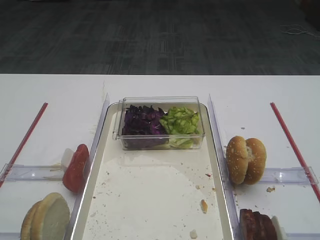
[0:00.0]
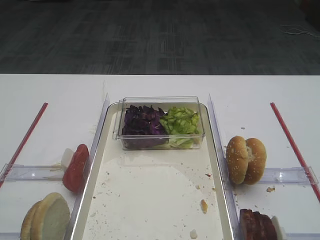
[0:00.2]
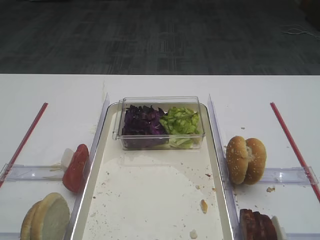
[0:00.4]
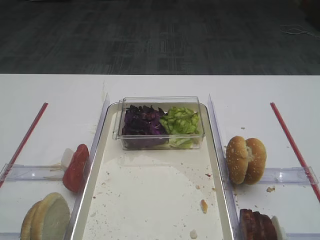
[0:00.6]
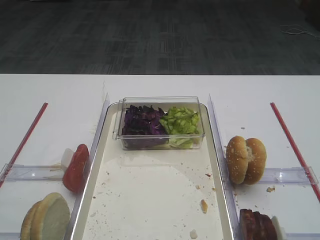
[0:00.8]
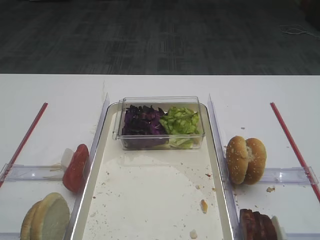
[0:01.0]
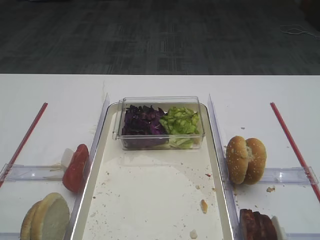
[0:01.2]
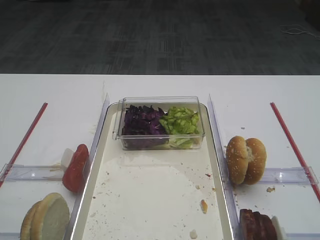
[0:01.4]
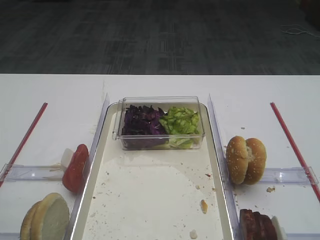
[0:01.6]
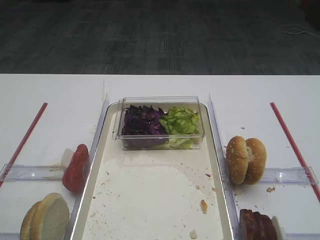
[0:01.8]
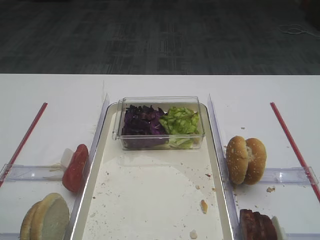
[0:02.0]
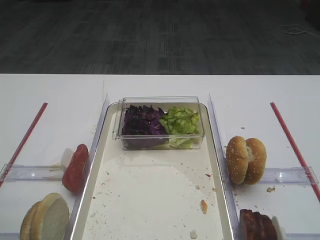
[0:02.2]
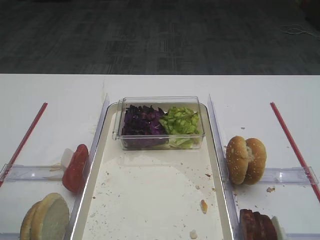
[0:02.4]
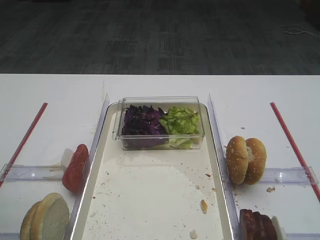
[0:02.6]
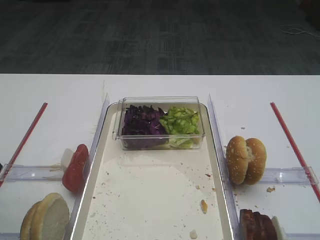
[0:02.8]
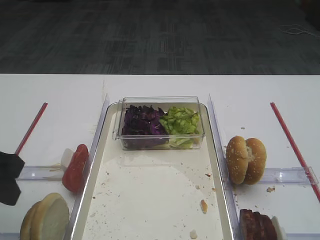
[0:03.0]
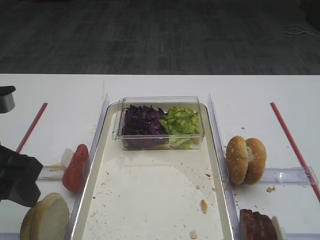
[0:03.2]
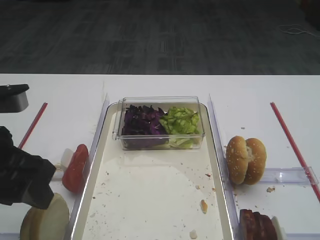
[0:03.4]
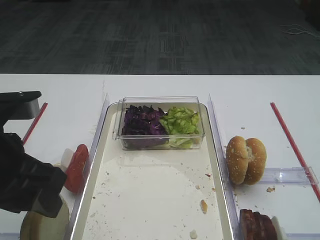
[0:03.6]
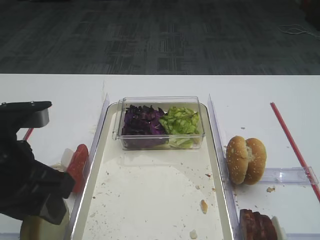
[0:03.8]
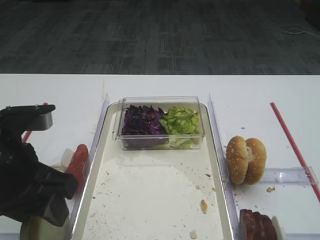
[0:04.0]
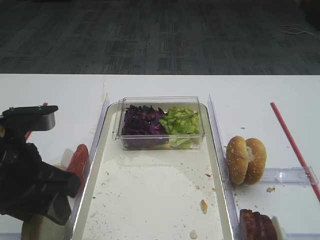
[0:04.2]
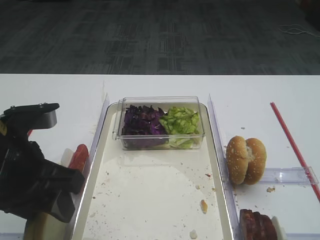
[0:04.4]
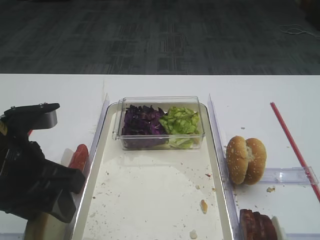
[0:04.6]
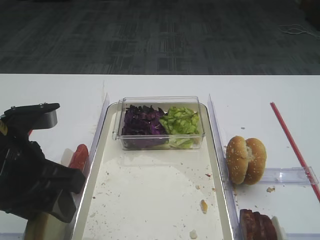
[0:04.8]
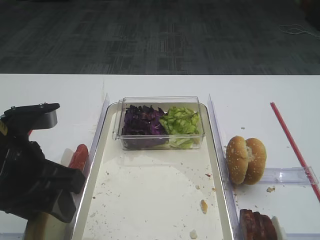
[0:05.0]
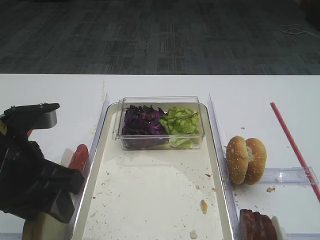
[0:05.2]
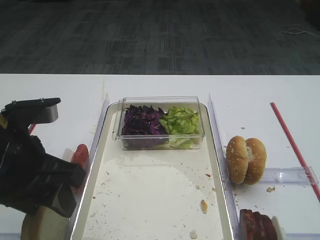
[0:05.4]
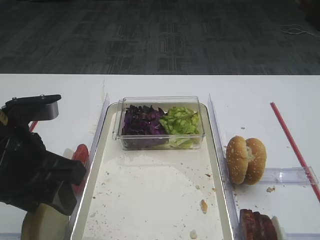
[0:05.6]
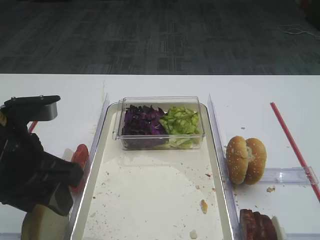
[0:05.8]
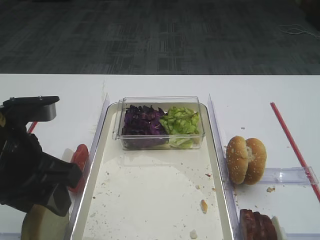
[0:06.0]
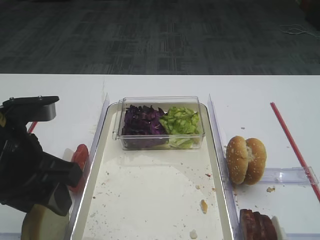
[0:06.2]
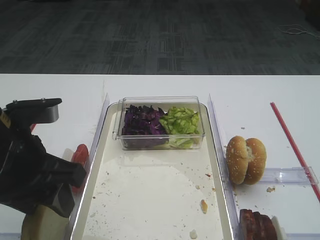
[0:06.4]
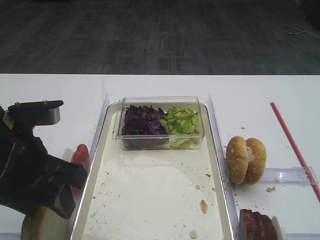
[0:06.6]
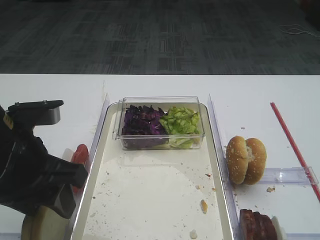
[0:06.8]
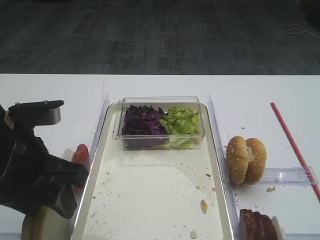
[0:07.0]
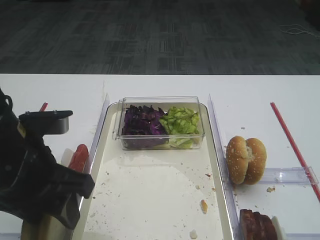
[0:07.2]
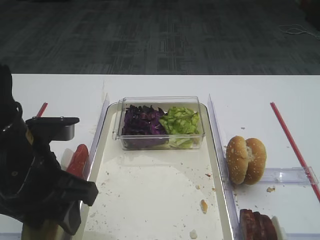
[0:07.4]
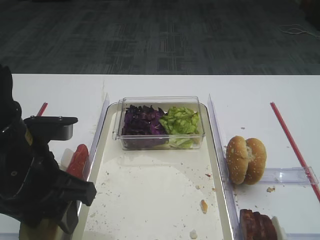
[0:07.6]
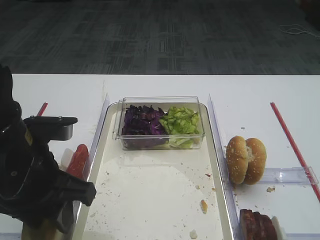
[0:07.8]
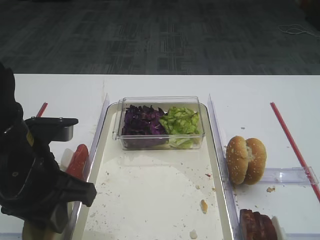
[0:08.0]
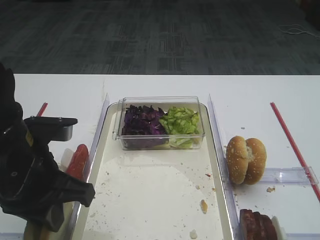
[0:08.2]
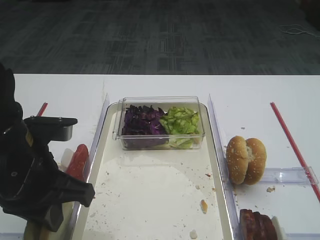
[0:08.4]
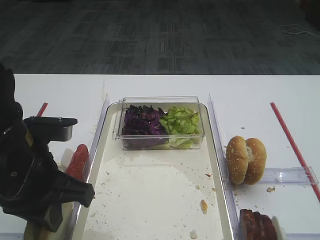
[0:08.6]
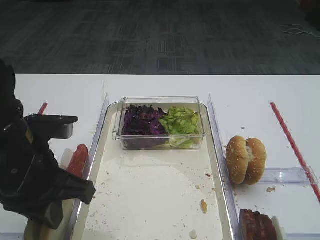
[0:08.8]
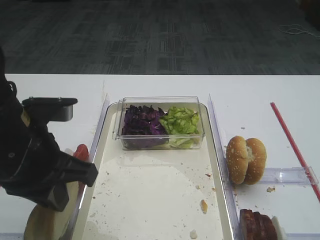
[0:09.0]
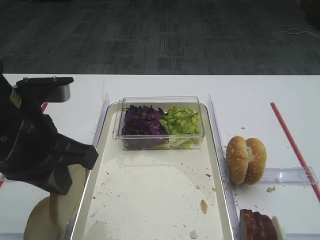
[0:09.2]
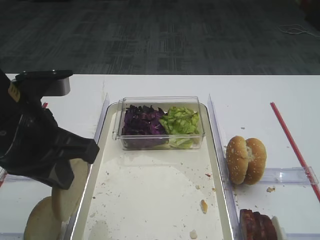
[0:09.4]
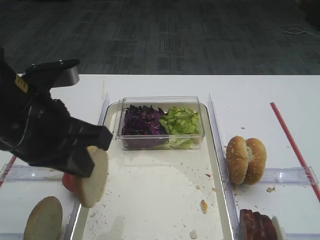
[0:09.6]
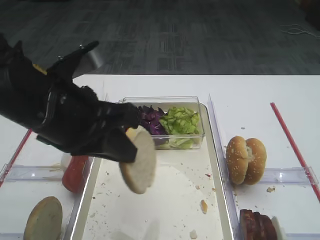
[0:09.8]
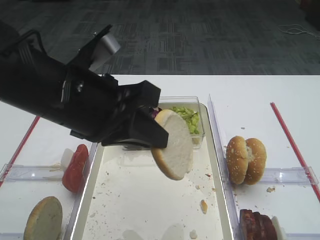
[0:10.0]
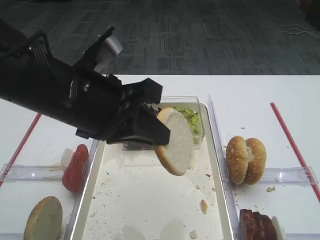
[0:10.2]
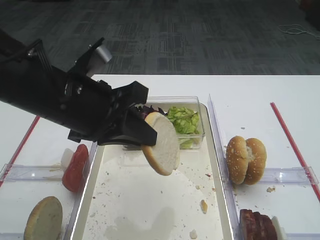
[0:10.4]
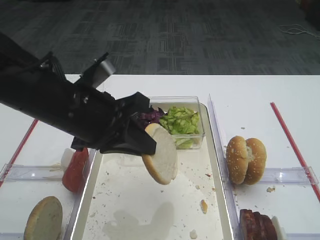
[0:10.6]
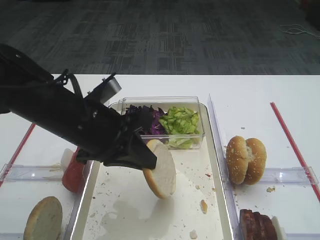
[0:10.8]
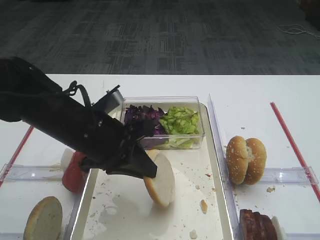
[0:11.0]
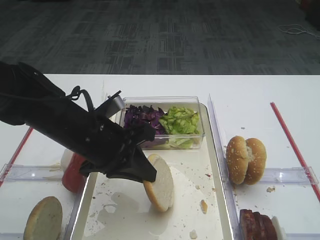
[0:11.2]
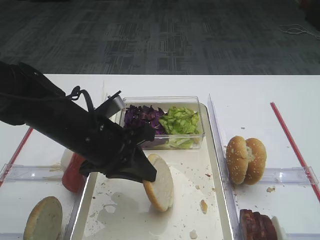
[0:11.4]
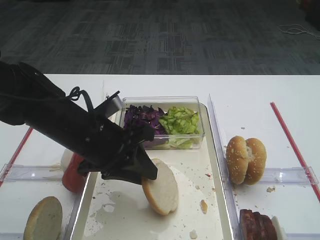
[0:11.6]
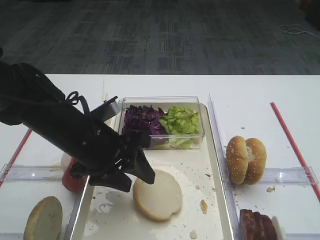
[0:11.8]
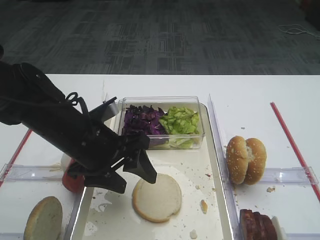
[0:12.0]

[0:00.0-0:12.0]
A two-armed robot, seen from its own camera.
Step, 0:00.0 to 0:09.2: Pick up the bread slice with the left gripper.
0:01.6 to 0:03.0: The left gripper shifts approximately 5 cm forward.
0:03.0 to 0:04.4: The left gripper travels to the right by roughly 5 cm.
0:04.4 to 0:06.0: Both grippers stay put.
0:06.0 to 0:07.6: The grippers make only small movements.
0:07.6 to 0:09.0: The left gripper closes its fingers.
0:09.0 to 0:10.4: The left gripper moves approximately 5 cm.
0:10.4 to 0:12.0: The left gripper moves downward, roughly 10 cm, and opens its fingers.

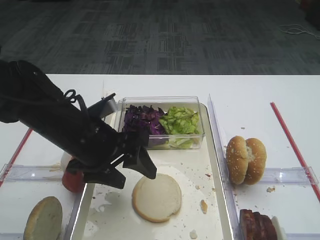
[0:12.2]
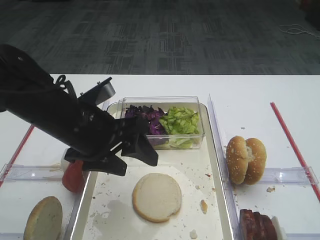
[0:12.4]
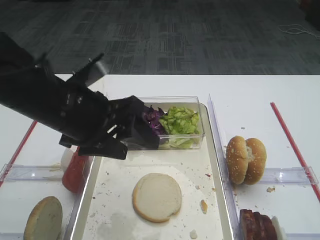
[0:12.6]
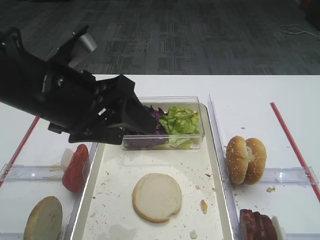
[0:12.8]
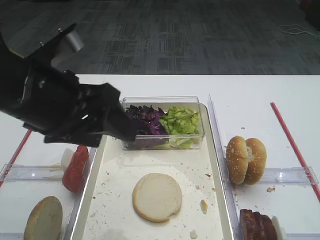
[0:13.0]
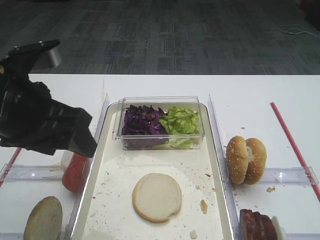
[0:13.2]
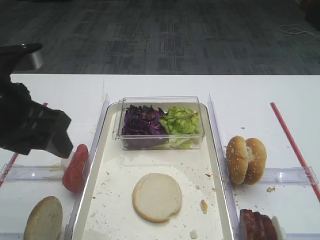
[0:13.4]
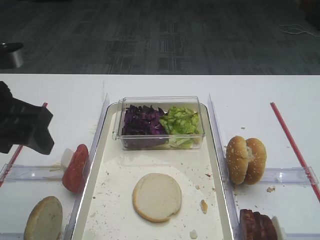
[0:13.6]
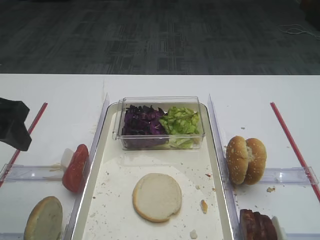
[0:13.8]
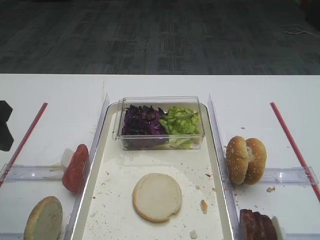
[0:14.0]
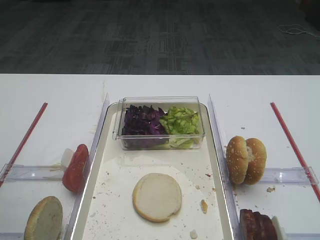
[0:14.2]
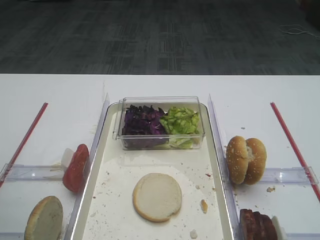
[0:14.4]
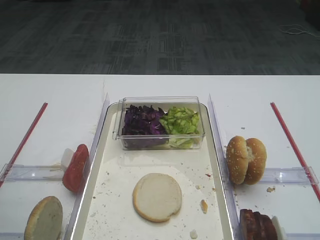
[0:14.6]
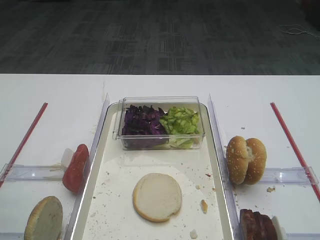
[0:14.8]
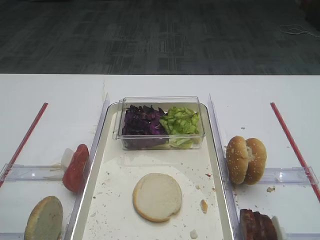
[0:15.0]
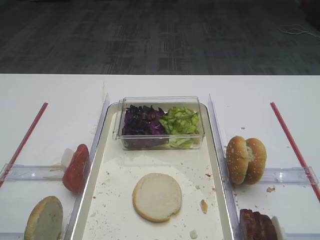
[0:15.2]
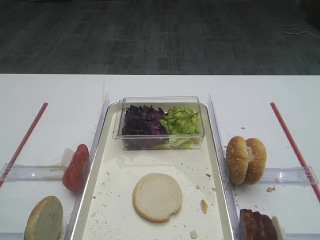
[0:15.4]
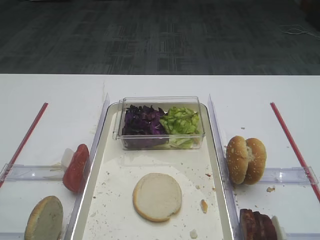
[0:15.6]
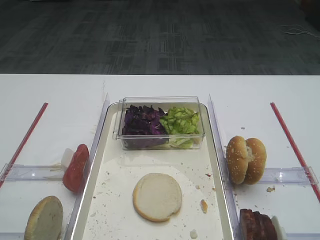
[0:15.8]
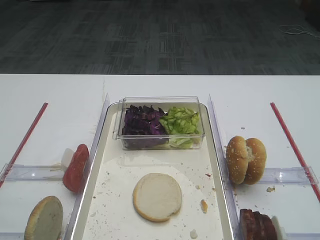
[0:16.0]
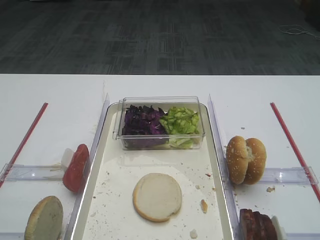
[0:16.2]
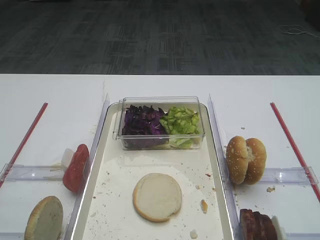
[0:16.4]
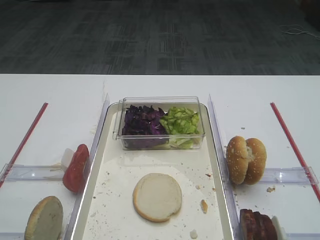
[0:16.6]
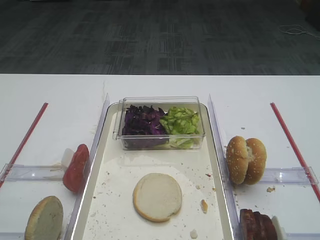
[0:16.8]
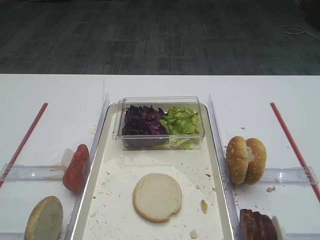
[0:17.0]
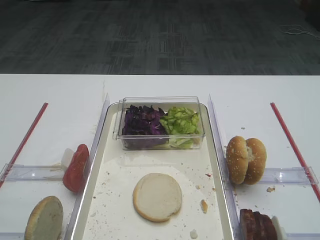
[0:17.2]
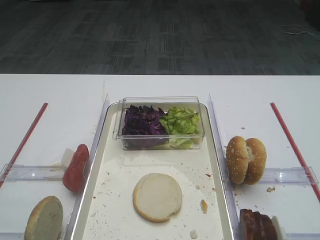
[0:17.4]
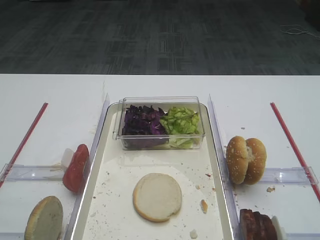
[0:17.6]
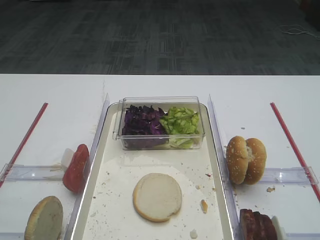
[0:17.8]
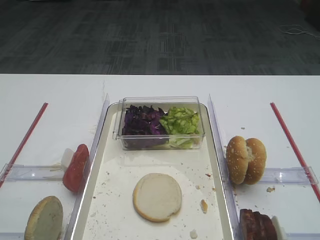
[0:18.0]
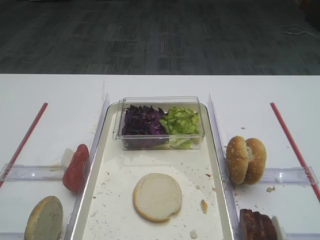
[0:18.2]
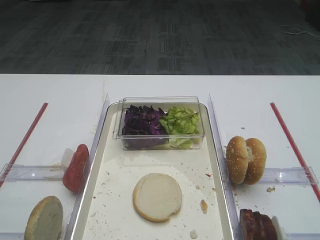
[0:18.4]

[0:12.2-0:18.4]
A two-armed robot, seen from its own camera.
0:12.2 to 0:13.8: The left gripper moves to the left and upward, approximately 15 cm.
0:13.8 to 0:15.4: The left gripper shifts some 15 cm backward.
0:16.8 to 0:18.4: Both grippers stay about where they are.

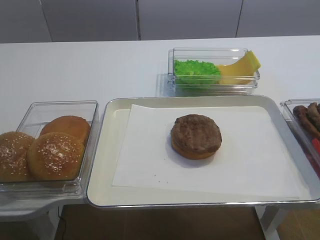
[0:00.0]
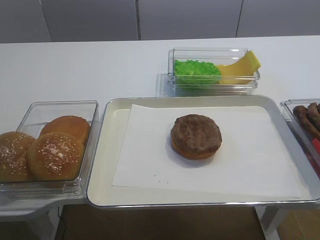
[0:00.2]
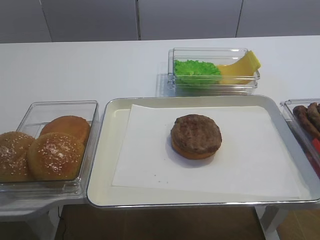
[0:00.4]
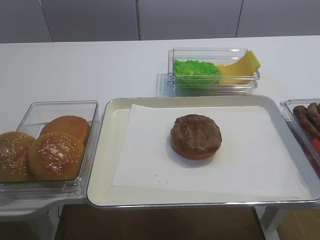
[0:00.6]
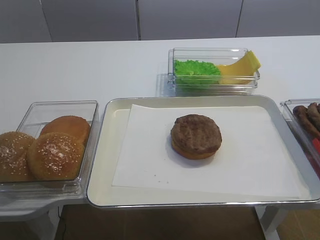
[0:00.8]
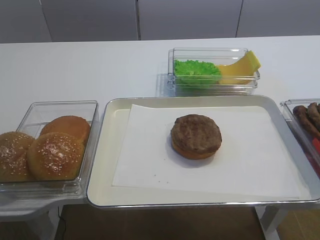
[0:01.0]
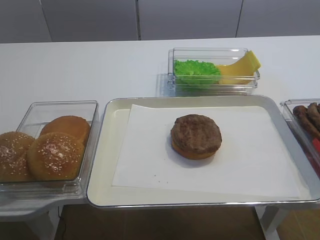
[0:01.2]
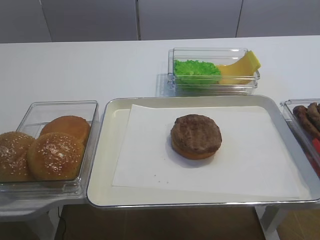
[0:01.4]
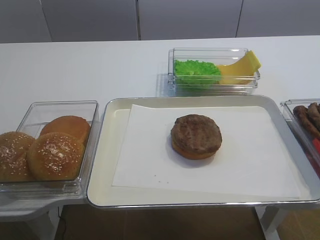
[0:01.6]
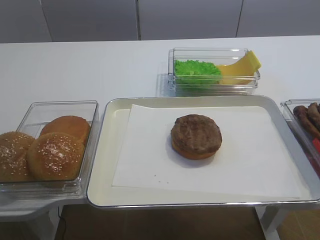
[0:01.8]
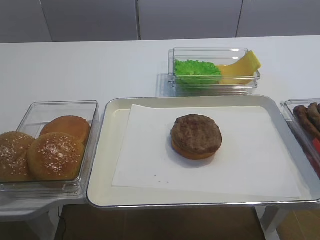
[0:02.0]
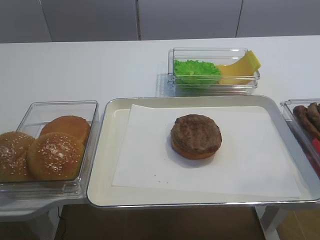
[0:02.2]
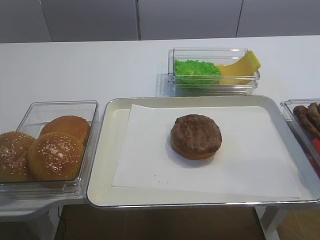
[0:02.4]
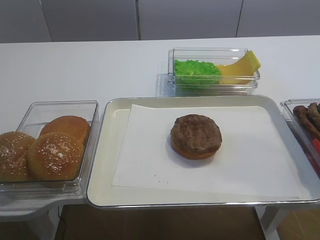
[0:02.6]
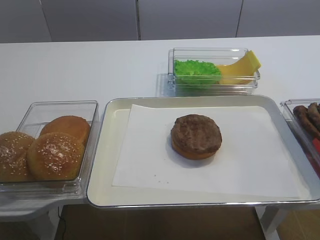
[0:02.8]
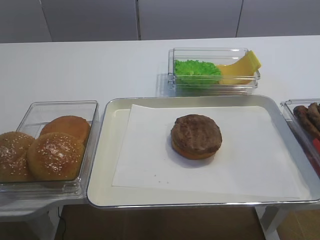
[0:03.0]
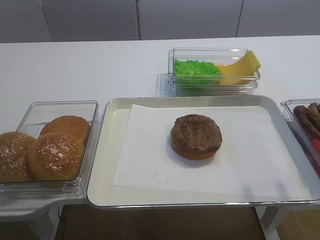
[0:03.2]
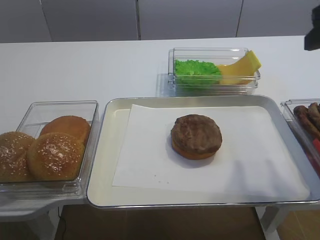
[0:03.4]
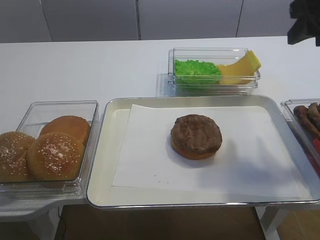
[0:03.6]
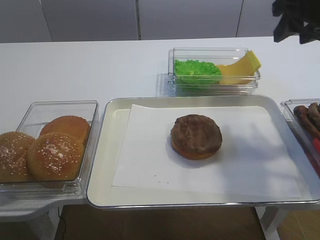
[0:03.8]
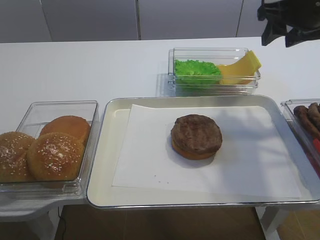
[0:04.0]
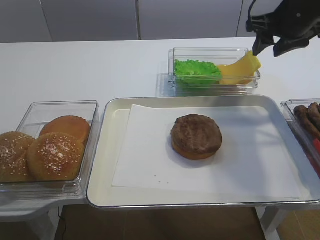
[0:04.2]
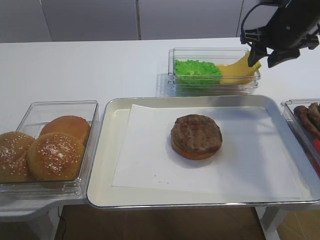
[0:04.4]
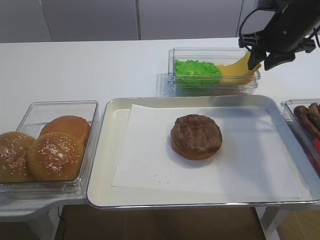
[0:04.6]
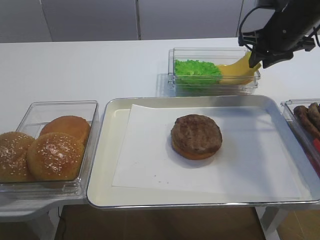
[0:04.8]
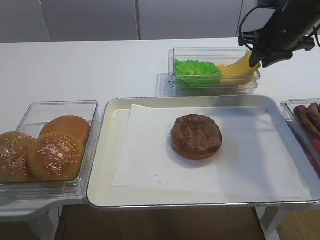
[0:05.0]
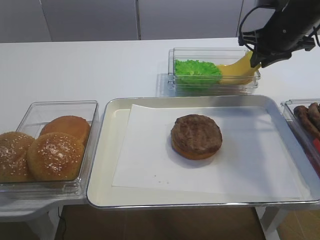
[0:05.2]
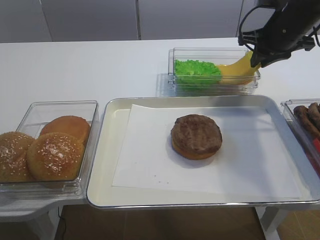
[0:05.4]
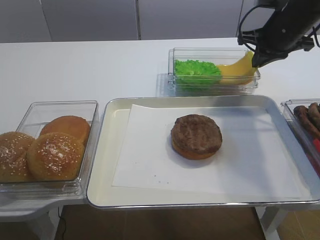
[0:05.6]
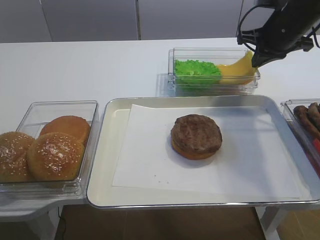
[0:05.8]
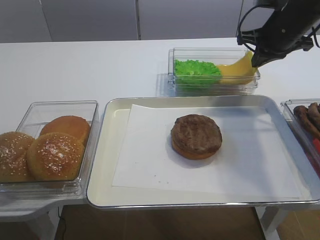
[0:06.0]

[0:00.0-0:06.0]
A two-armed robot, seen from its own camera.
0:03.0 to 0:04.4: The right gripper travels forward by about 25 cm.
0:04.4 to 0:06.0: The right gripper closes up.
